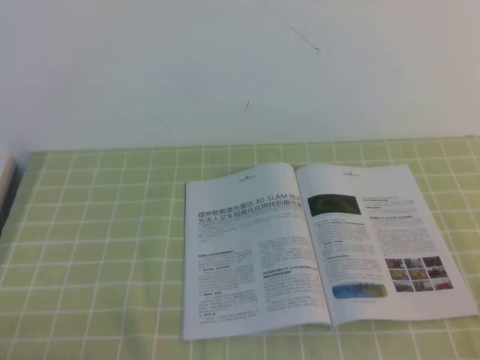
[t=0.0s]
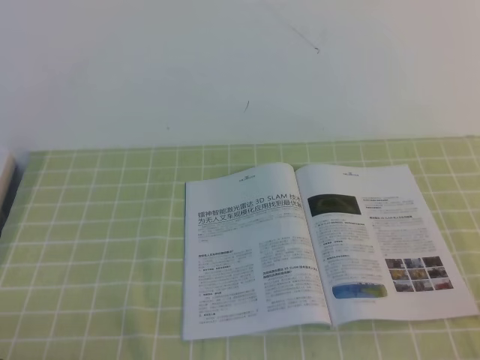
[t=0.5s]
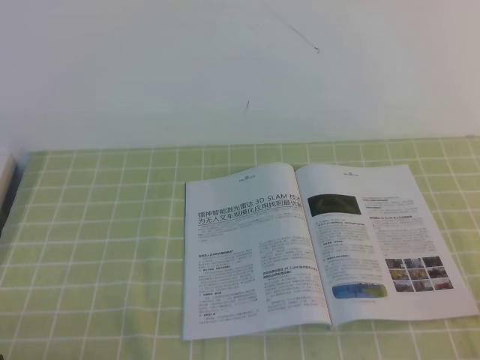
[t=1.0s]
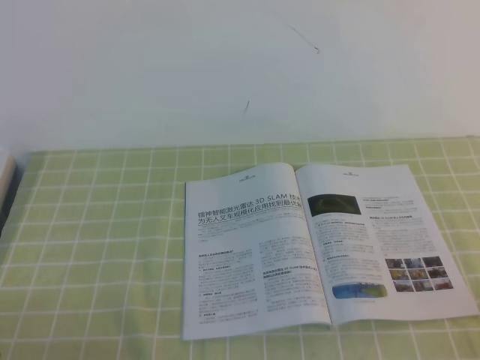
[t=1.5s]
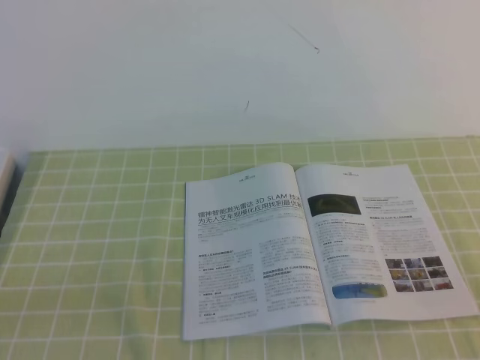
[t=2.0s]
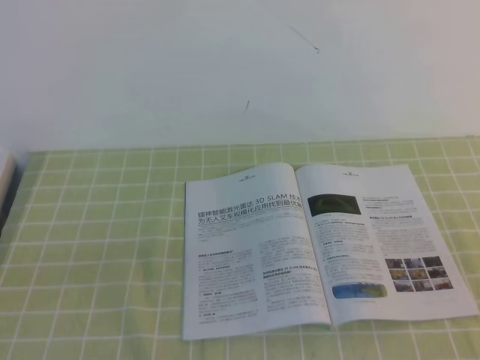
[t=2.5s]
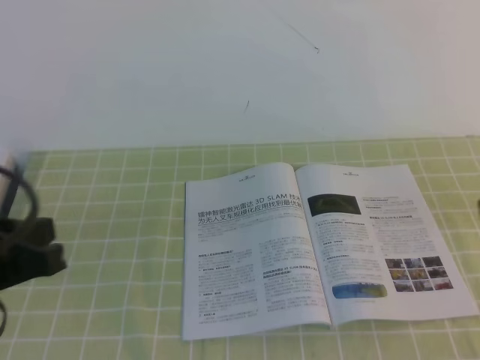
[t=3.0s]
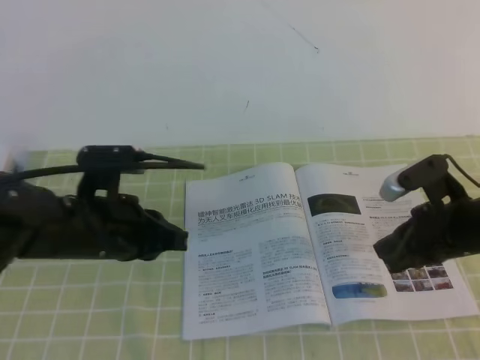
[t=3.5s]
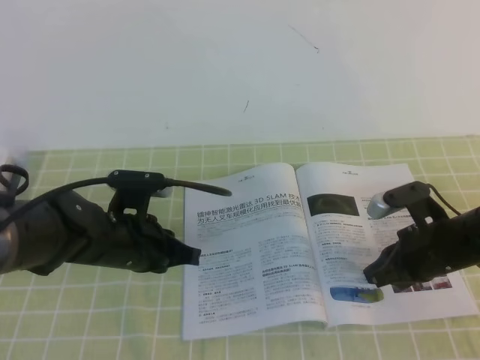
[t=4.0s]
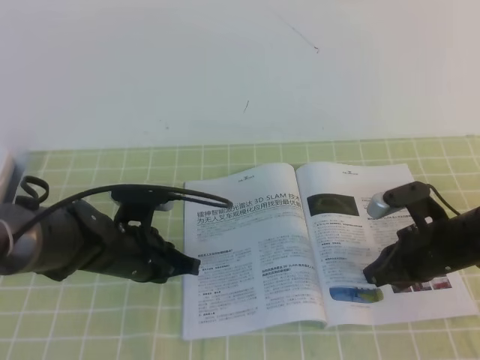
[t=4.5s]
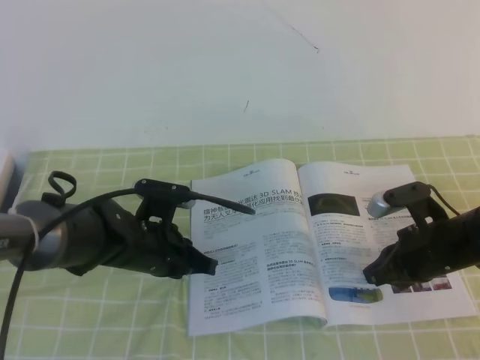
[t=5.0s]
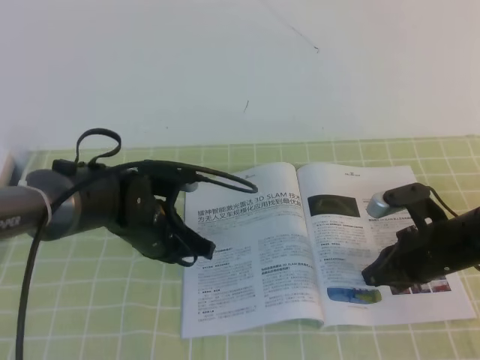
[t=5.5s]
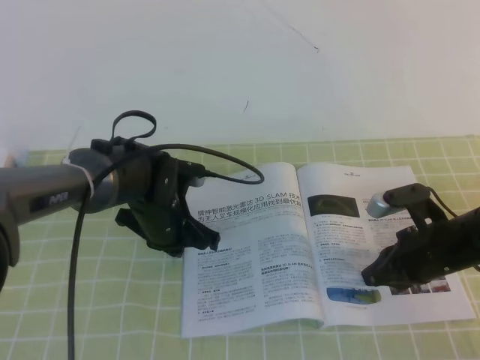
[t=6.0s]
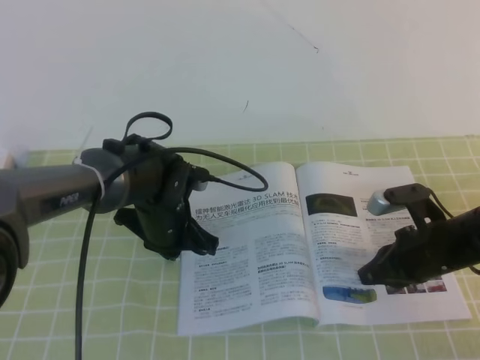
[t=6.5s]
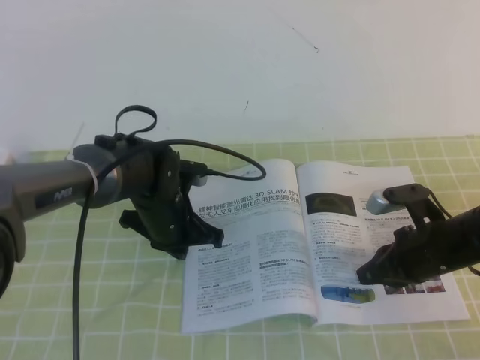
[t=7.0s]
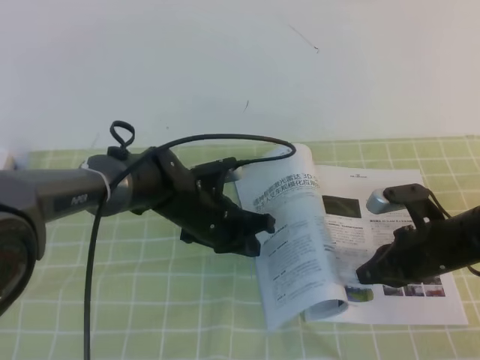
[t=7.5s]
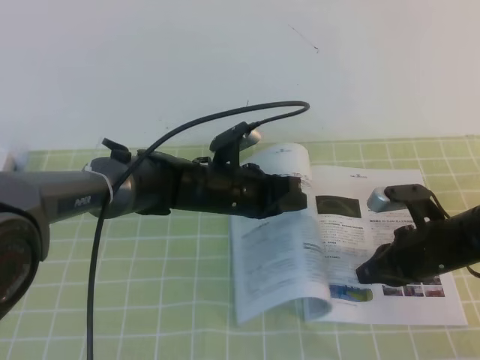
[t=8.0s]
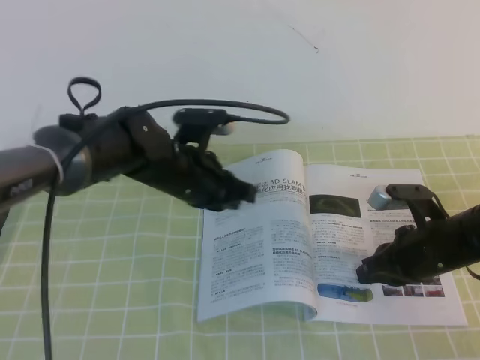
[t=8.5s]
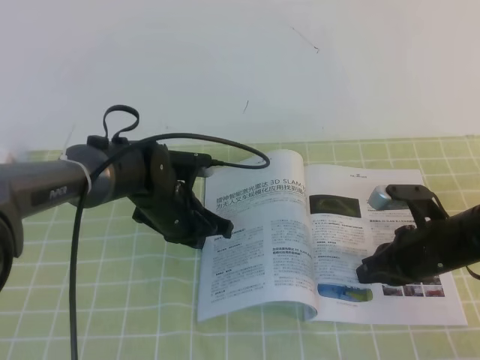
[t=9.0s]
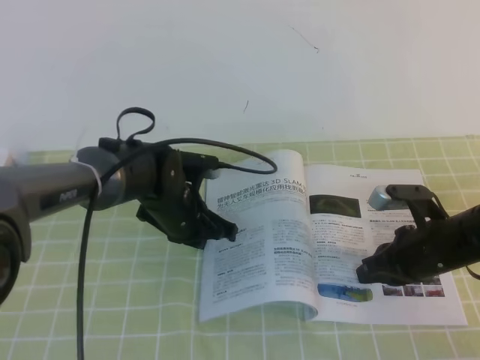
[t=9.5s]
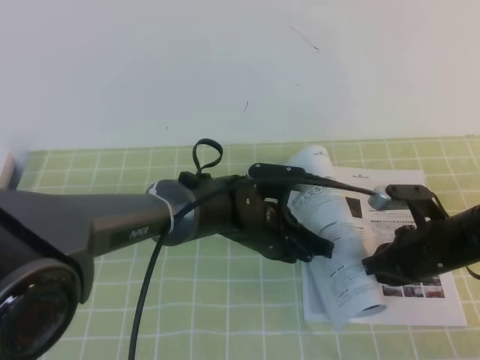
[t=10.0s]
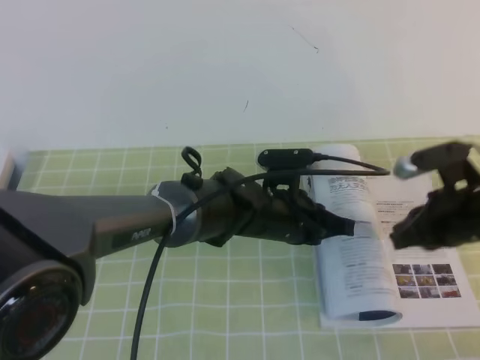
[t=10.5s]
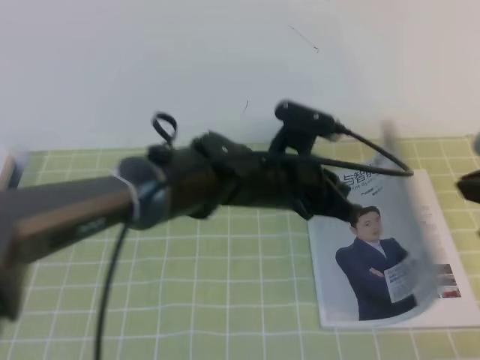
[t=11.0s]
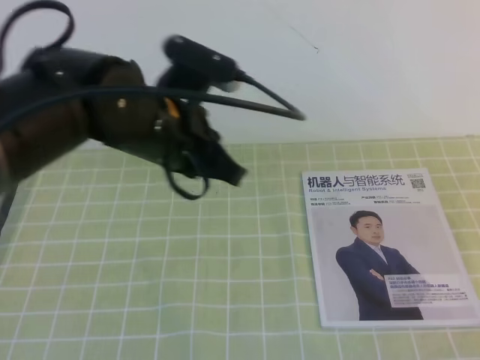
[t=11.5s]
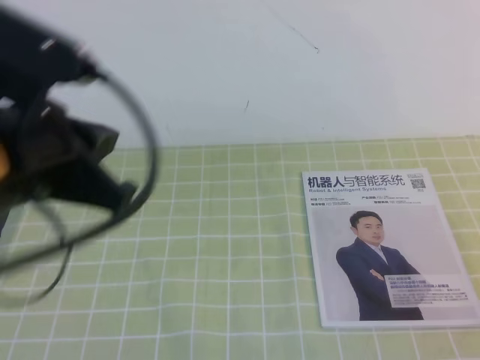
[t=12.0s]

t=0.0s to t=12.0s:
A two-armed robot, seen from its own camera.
Task of the whole recording: on the green tablecloth, hold the book with one hand and close it with the other.
t=2.0s to t=4.0s: The left gripper travels forward and to the right by approximately 30 cm, while the right gripper travels forward and downward by some 30 cm.
t=4.0s to t=6.0s: The left gripper moves forward, approximately 5 cm.
t=6.0s to t=8.0s: The left gripper heads to the right, covering roughly 10 cm.
t=8.0s to t=10.0s: The left gripper ends up approximately 5 cm from where it was.
t=10.0s to t=12.0s: The right gripper heads backward and upward, covering about 35 cm. The left gripper moves upward, to the left and backward, about 30 cm.

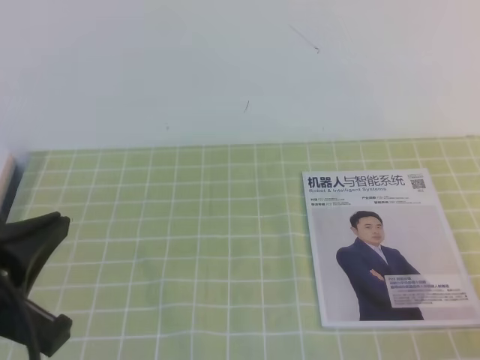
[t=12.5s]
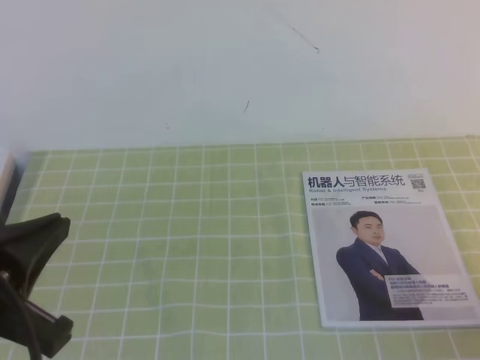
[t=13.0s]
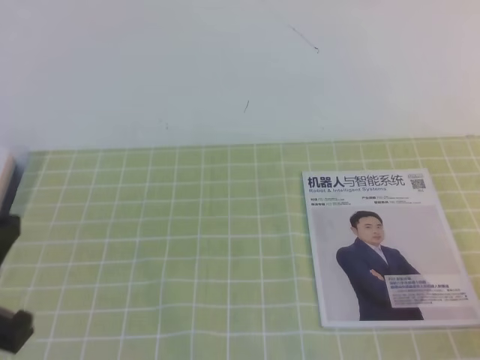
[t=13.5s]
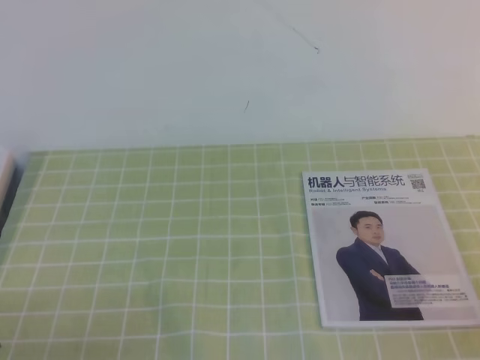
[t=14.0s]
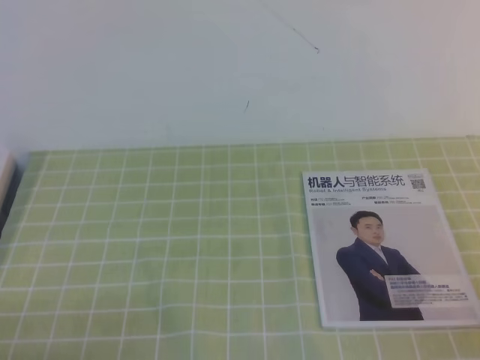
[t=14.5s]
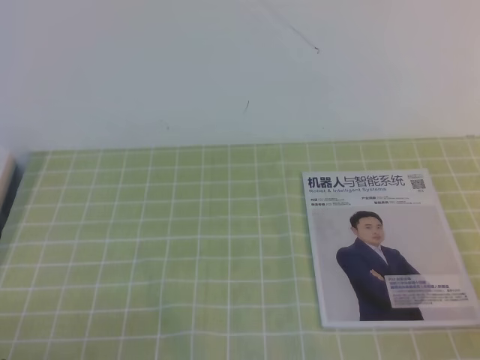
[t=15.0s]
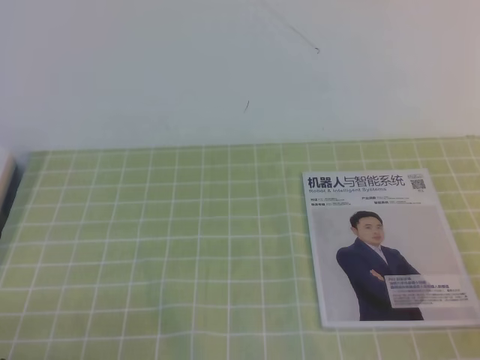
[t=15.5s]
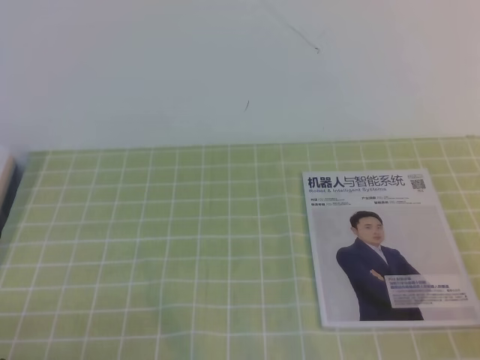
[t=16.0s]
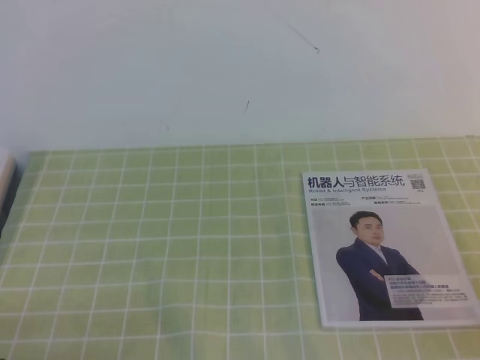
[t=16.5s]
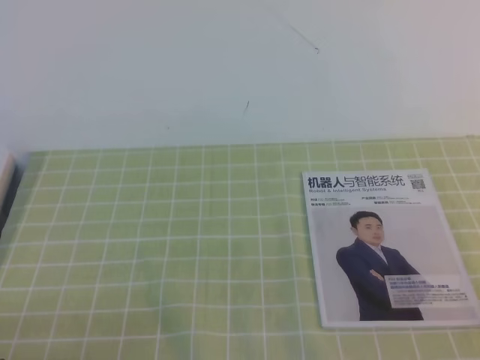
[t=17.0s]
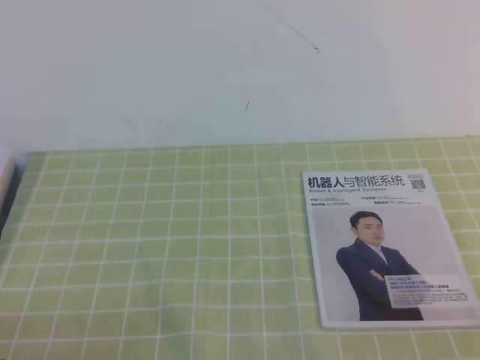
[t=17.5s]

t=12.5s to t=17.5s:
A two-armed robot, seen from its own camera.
Task of the whole recording: on the green tablecloth, hold the book with one hand and close it with the other.
Step, t=12.5s to t=17.5s: Close the open book.
t=12.5s to t=15.0s: The left gripper goes some 15 cm downward and backward.
